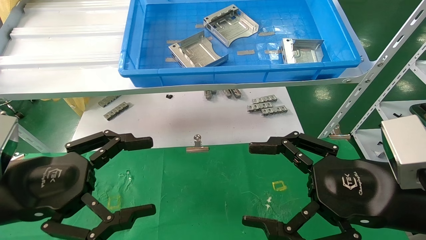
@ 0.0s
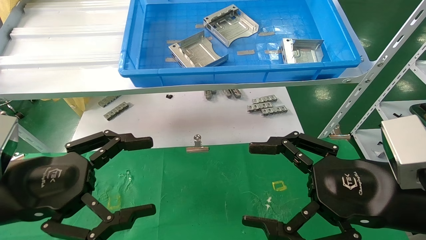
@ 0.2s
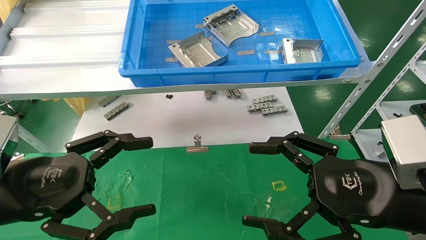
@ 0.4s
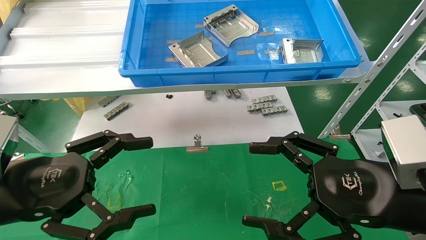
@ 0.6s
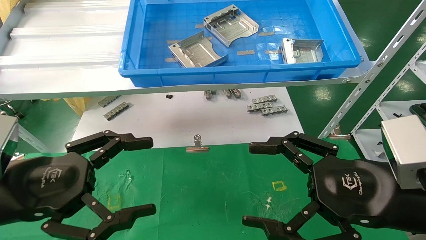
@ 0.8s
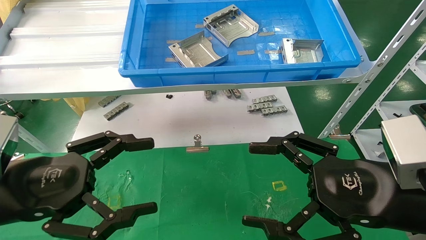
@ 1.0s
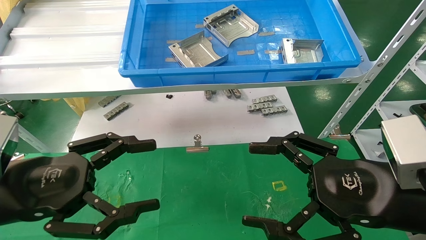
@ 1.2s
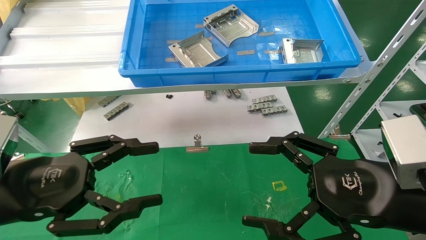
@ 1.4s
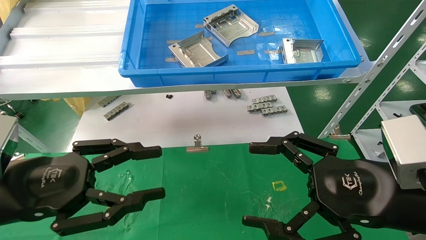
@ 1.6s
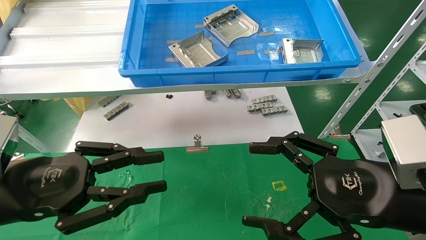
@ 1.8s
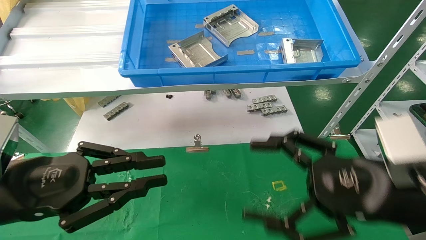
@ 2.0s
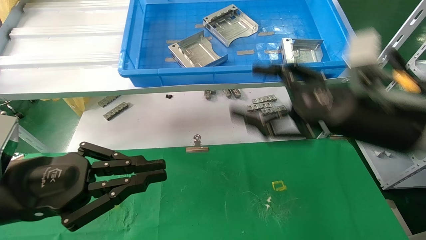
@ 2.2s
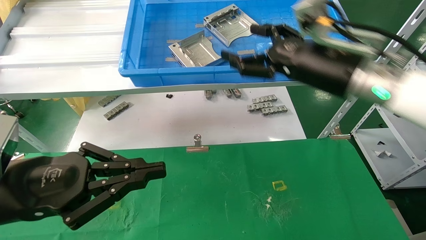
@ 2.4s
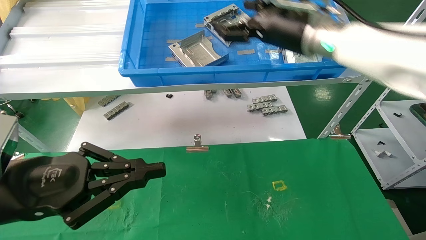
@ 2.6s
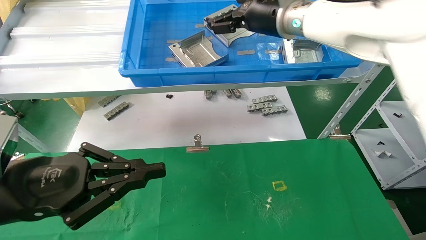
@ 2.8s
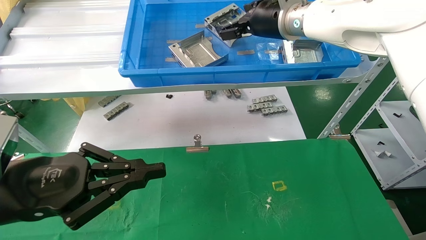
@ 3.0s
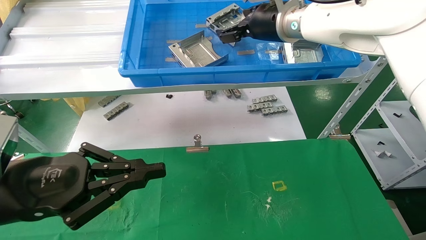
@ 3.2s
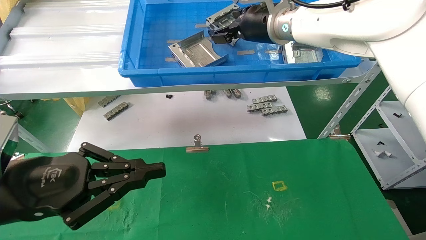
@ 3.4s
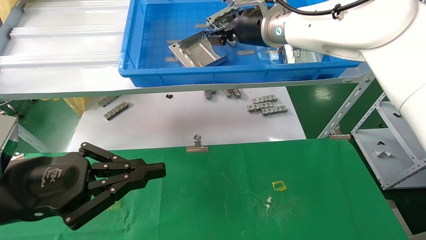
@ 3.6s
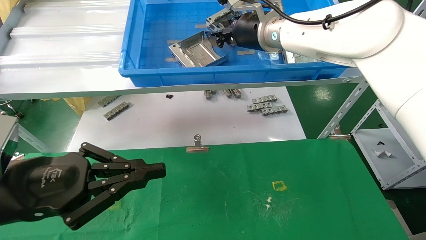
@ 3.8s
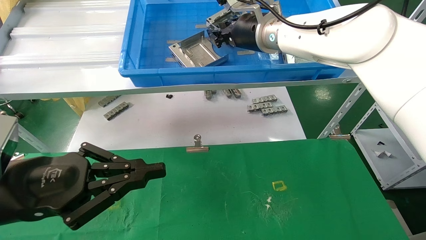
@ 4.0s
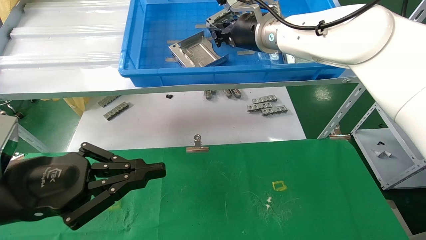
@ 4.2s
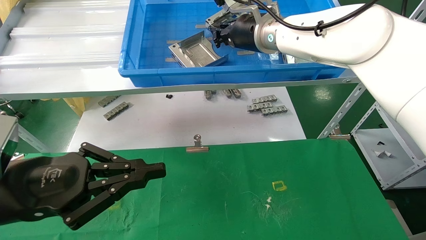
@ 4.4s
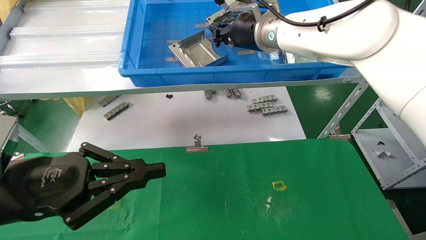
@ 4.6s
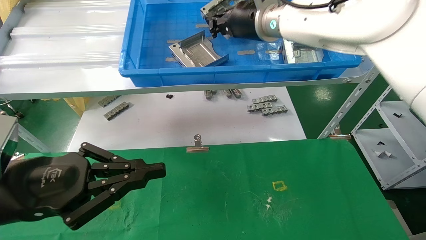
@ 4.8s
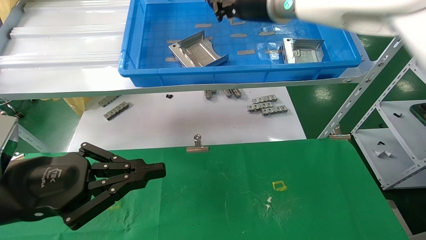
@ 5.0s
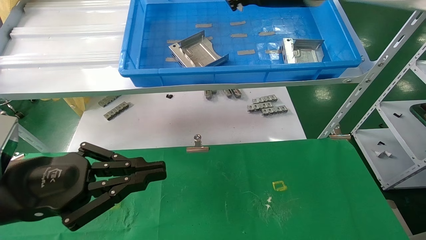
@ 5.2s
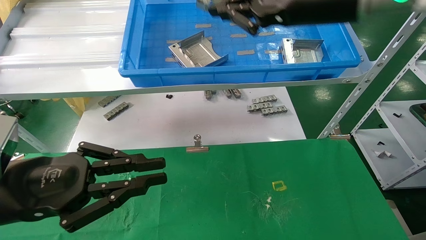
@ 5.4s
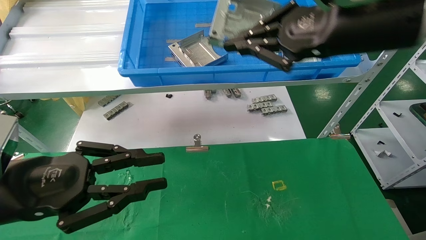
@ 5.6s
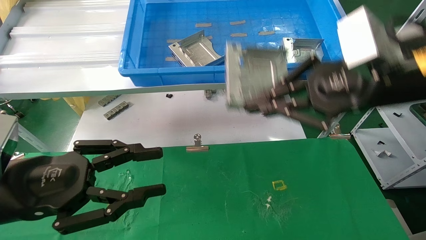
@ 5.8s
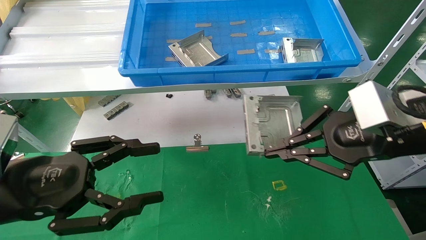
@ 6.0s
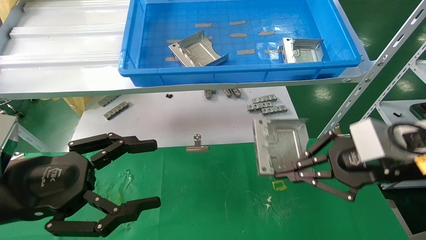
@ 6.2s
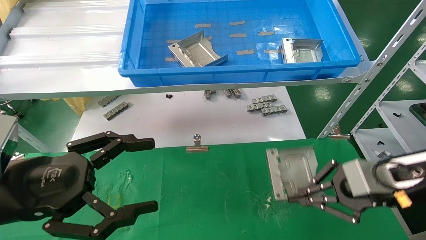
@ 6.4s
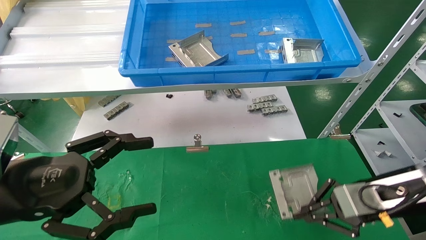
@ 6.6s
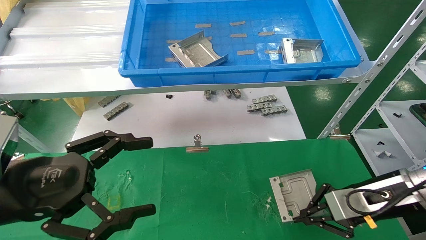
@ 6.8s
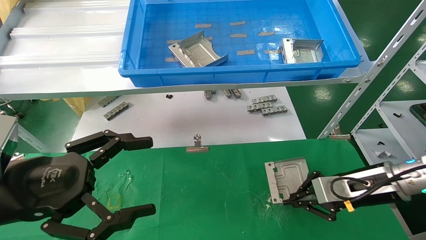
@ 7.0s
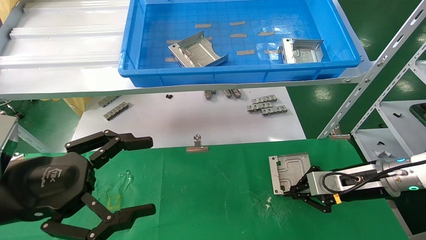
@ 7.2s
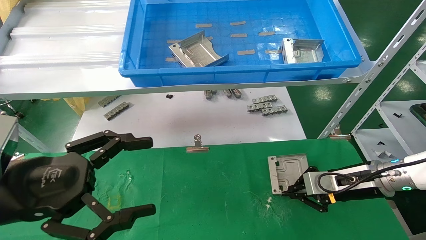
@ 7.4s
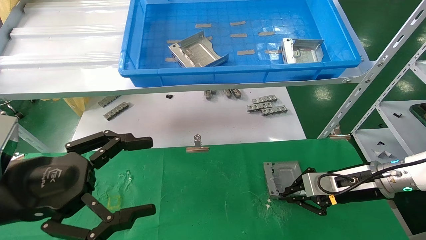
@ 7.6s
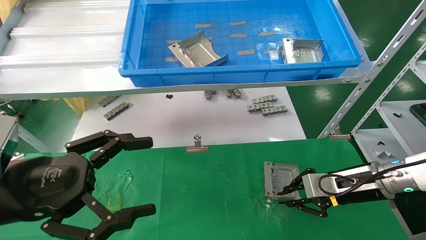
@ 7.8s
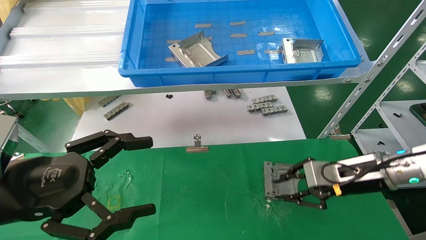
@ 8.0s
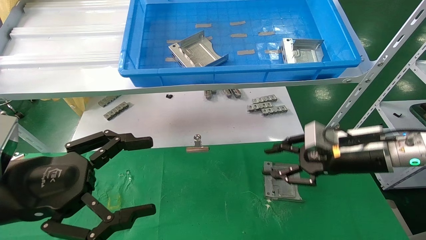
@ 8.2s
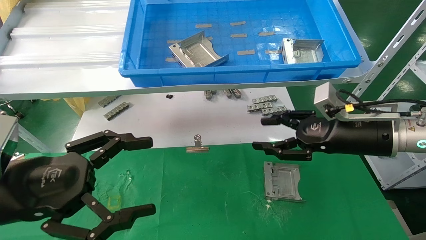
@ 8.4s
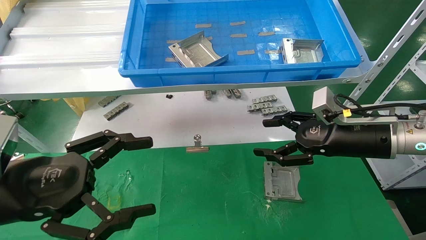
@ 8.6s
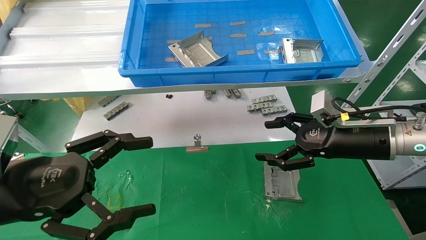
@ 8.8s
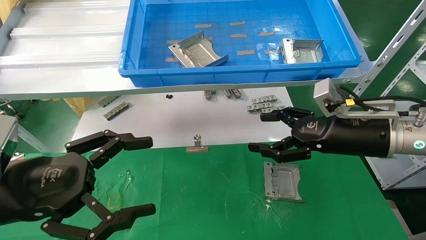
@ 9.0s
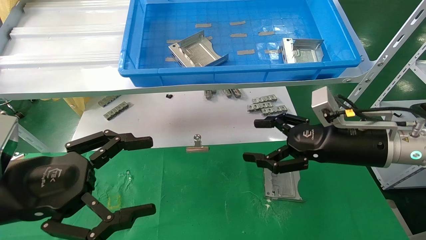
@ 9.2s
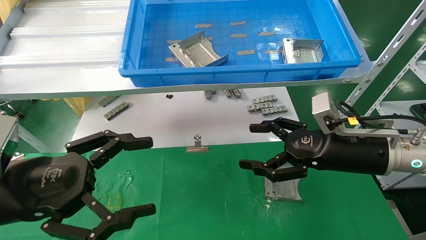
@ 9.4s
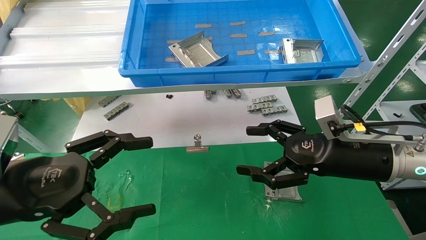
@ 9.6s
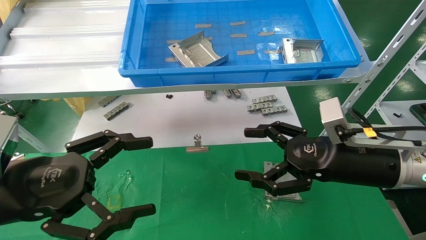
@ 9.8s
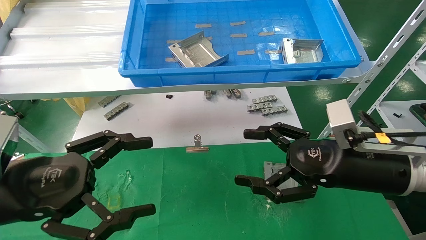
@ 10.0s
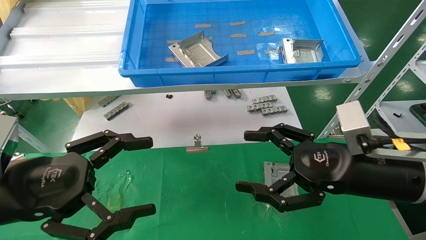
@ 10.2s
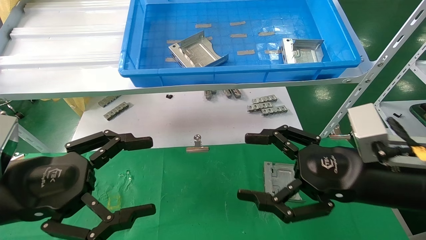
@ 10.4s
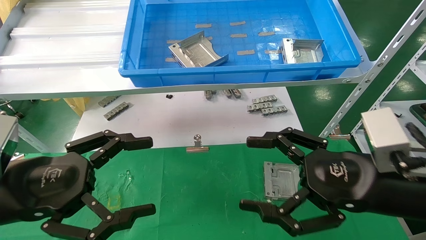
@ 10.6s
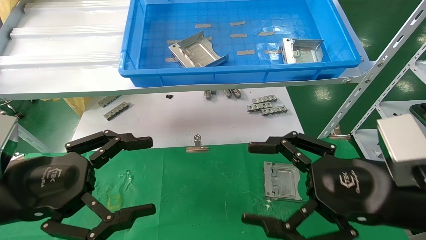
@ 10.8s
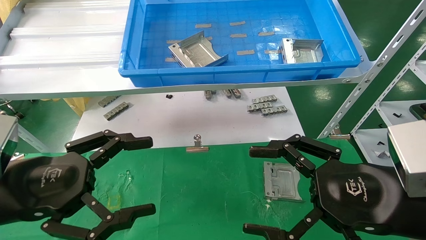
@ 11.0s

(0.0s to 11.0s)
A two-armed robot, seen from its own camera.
Task of the whole recording: use the mechanical arm to pick up the parts and place them on the table.
Step, 2.0s - 5.2s: Pick up the hard drive bracket from the feeding area.
Step, 5.4s - 8.0s: Place the hard drive bracket into the box.
0.0s - 1.6s: The left gripper closes up.
1.6s - 3.2s: The left gripper closes up; the right gripper heads forward, upward and to the left, covering some 35 cm.
3.2s - 4.8s: The right gripper closes up.
4.8s - 6.2s: The left gripper opens up; the right gripper moves to the right, downward and backward, some 30 cm.
6.2s - 7.8s: The right gripper heads downward and forward, covering approximately 15 cm.
7.8s - 9.4s: The right gripper heads upward and to the left, covering approximately 10 cm, and opens.
9.4s - 11.0s: The right gripper travels backward by some 15 cm.
